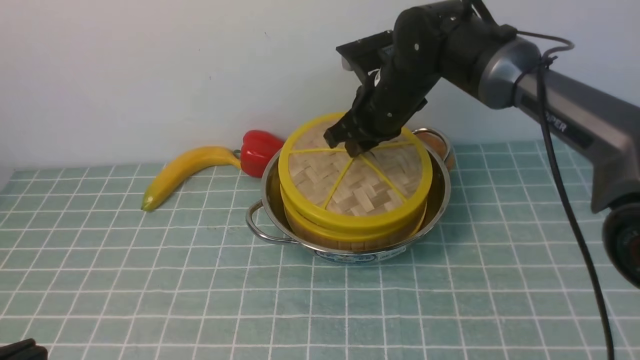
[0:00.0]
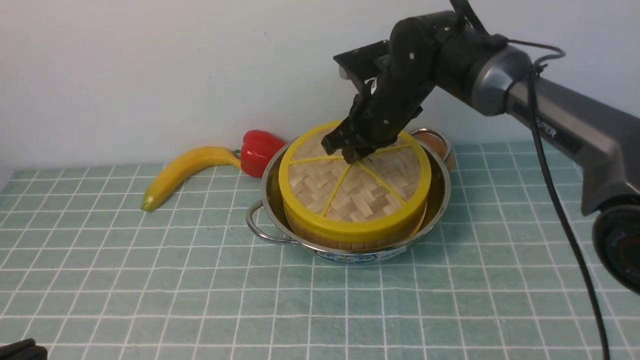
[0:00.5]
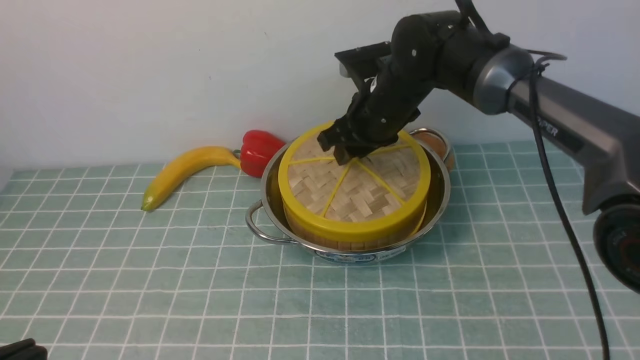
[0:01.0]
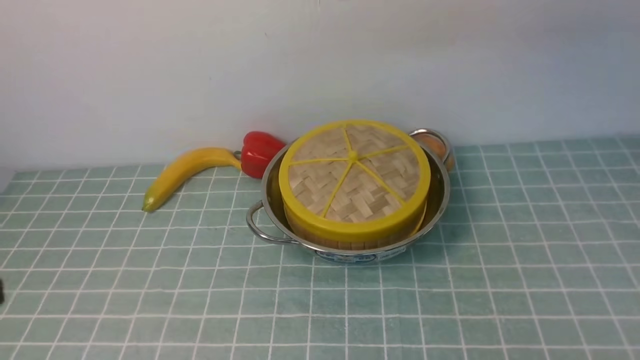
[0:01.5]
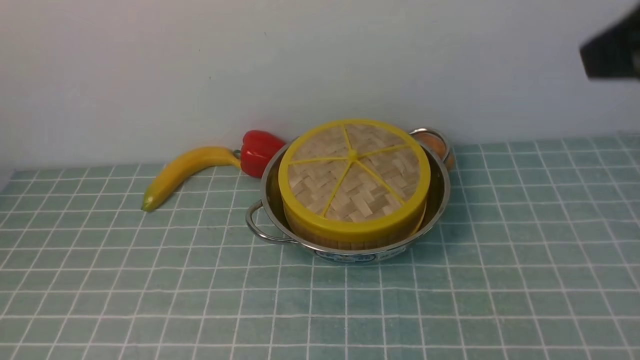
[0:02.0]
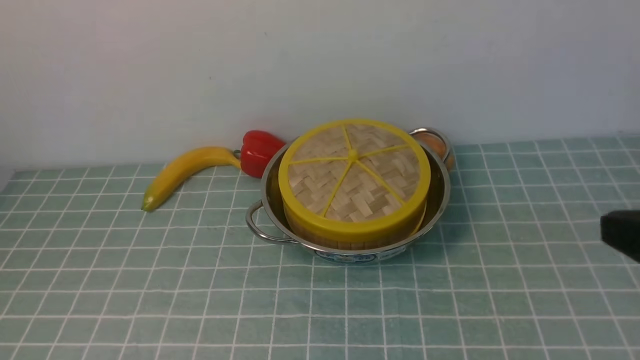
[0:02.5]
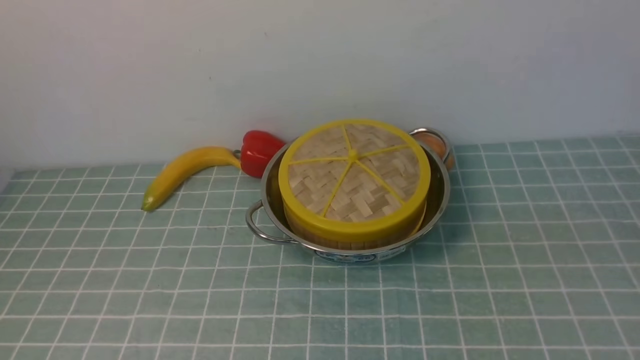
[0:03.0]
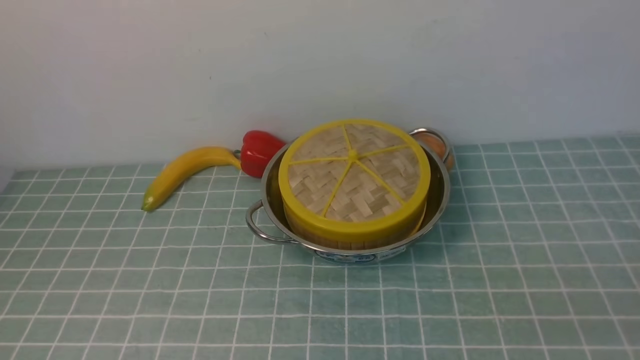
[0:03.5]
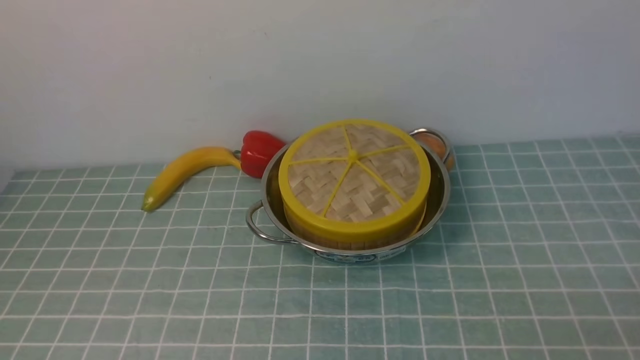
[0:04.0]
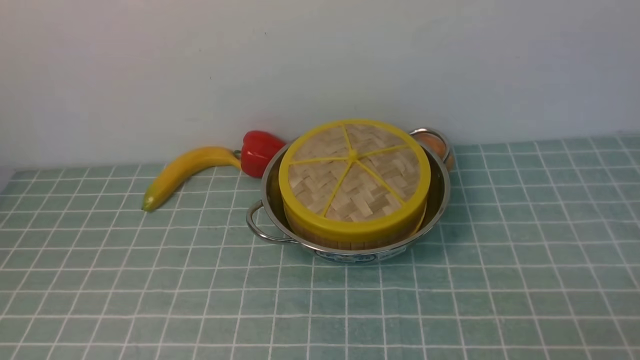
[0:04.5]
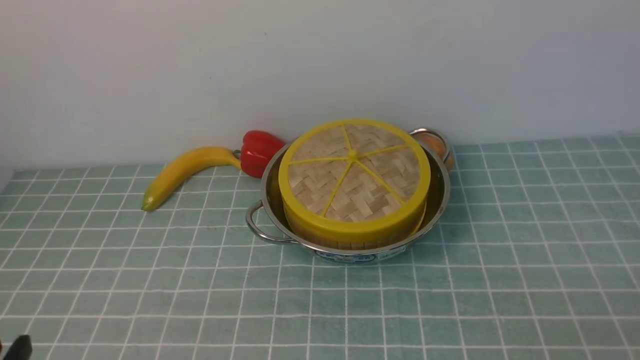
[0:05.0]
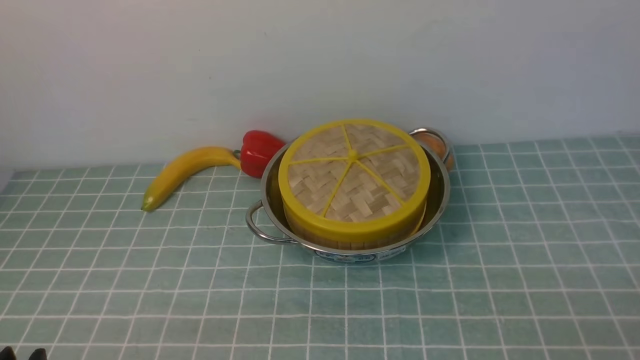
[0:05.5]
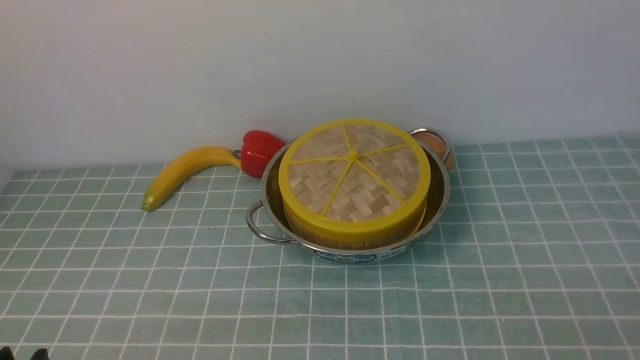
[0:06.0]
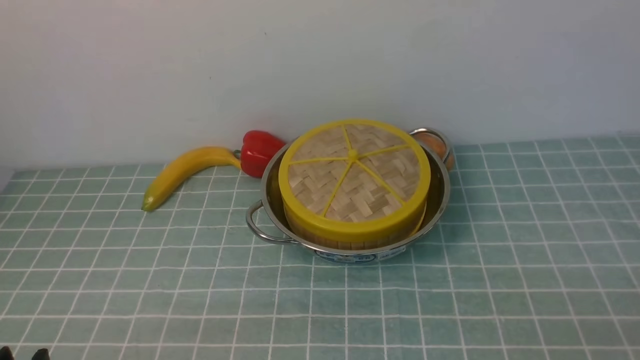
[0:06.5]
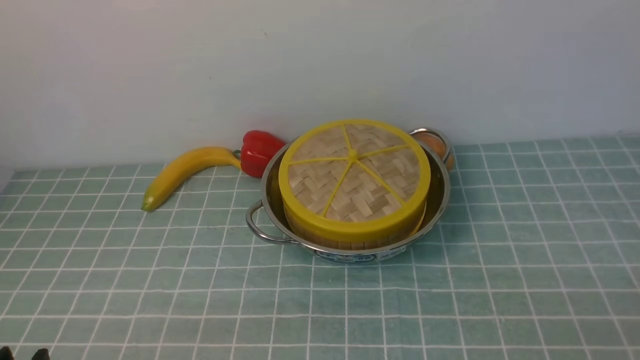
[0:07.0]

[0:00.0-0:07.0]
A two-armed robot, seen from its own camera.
Task of the whole recording: place the steamer in the pot on the blue tablecloth, and put the lid on the steamer.
0:00.0 to 0:02.0: The right gripper travels backward, upward and to the right by about 40 cm, and opens, then closes again.
0:02.0 to 0:03.5: The right gripper heads downward and backward, covering approximately 25 cm.
